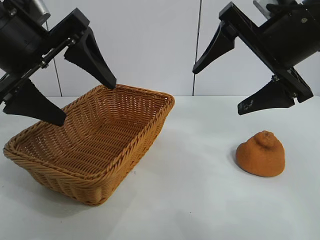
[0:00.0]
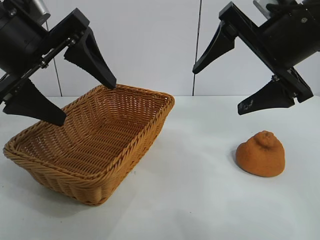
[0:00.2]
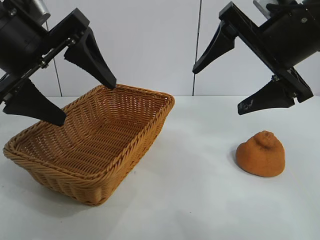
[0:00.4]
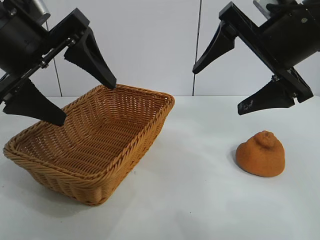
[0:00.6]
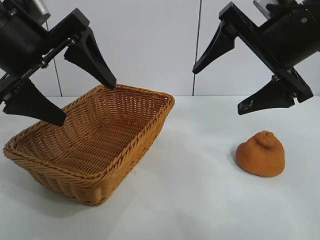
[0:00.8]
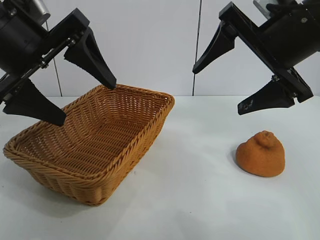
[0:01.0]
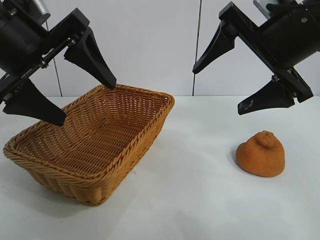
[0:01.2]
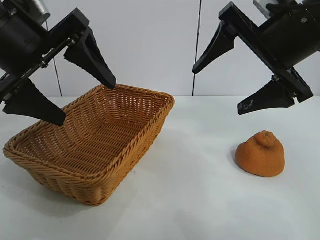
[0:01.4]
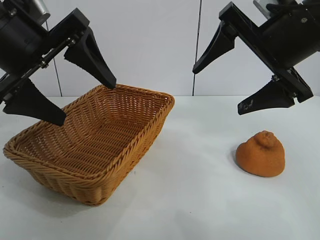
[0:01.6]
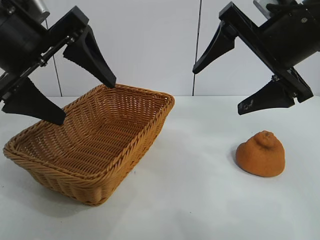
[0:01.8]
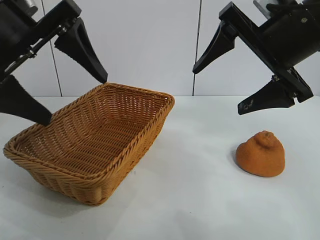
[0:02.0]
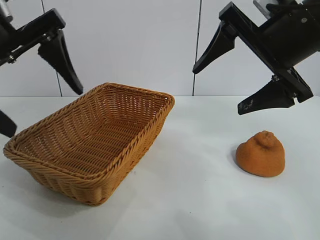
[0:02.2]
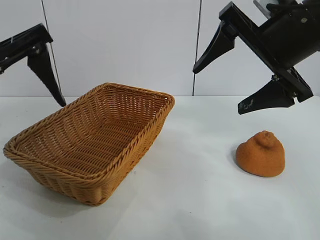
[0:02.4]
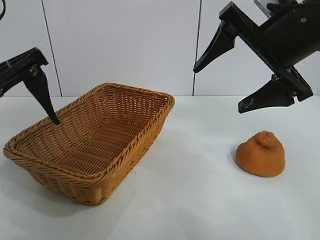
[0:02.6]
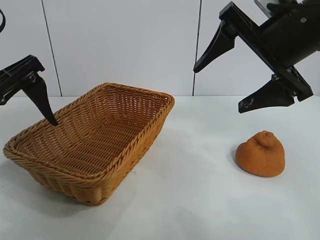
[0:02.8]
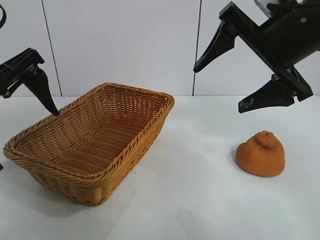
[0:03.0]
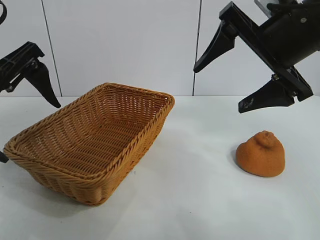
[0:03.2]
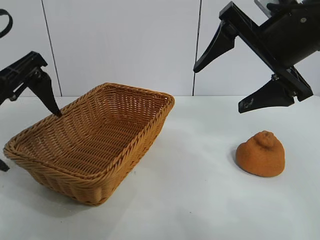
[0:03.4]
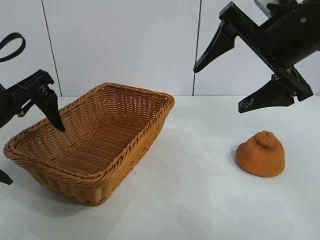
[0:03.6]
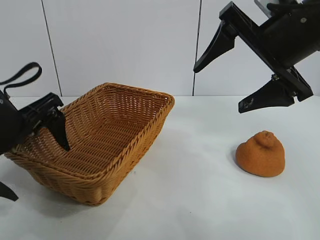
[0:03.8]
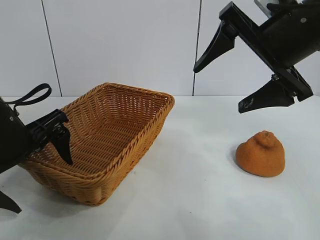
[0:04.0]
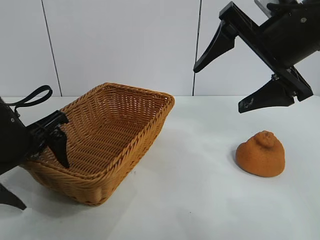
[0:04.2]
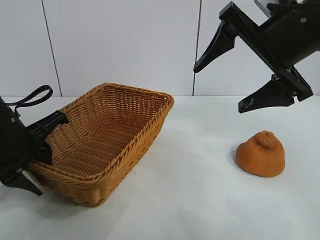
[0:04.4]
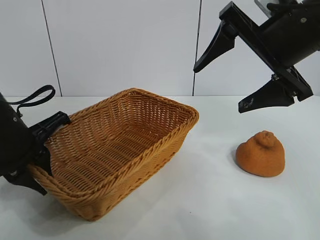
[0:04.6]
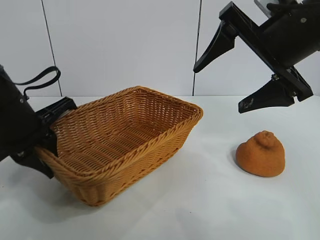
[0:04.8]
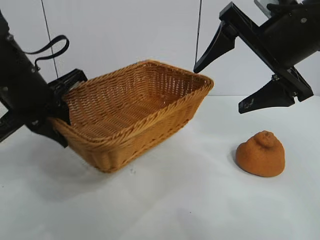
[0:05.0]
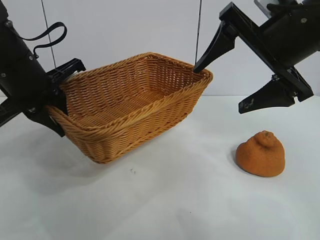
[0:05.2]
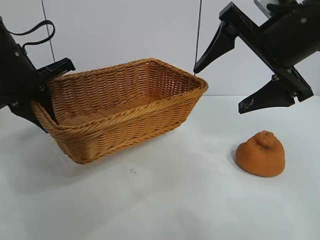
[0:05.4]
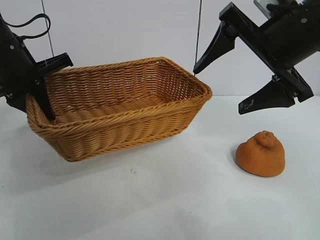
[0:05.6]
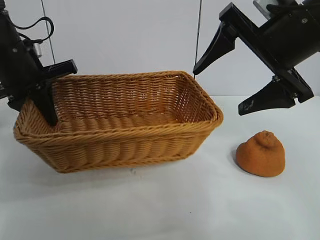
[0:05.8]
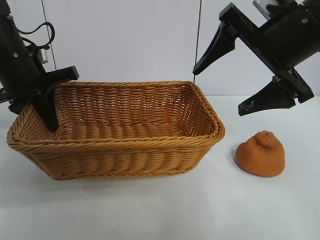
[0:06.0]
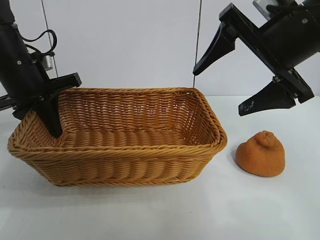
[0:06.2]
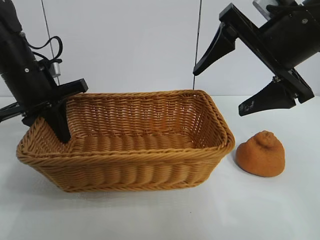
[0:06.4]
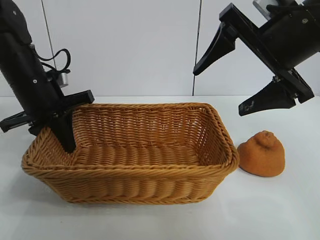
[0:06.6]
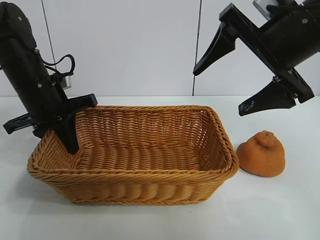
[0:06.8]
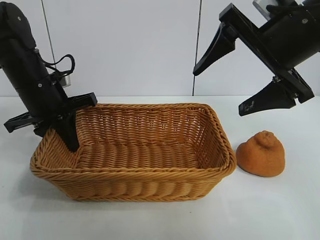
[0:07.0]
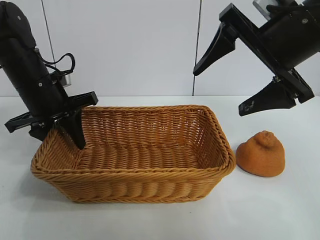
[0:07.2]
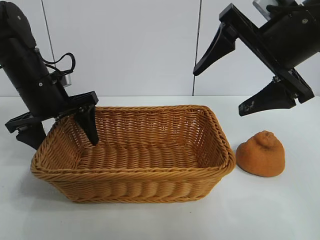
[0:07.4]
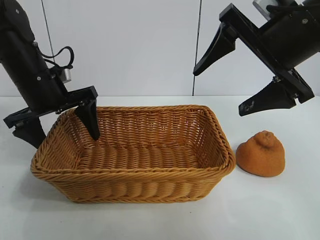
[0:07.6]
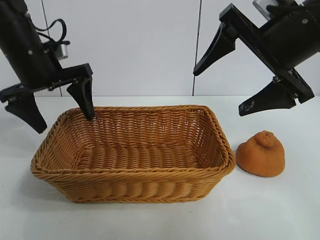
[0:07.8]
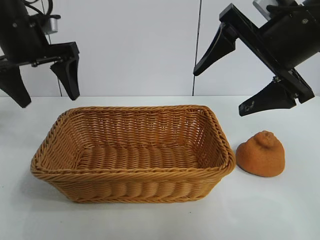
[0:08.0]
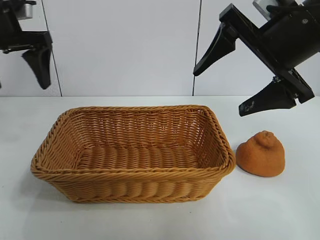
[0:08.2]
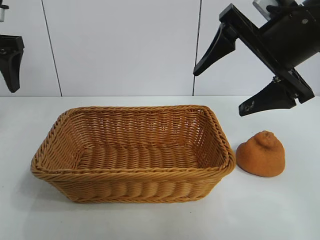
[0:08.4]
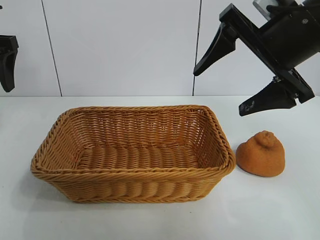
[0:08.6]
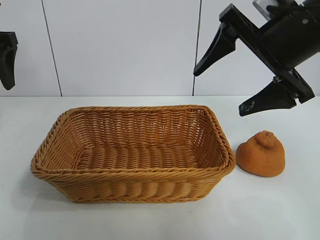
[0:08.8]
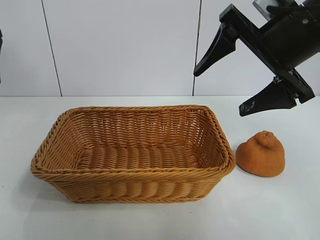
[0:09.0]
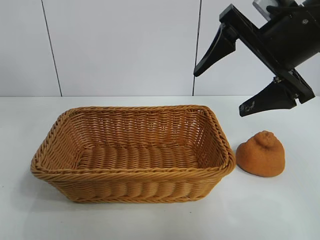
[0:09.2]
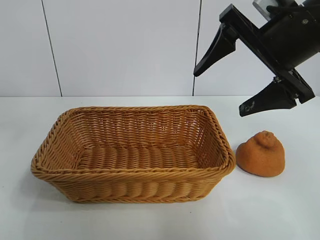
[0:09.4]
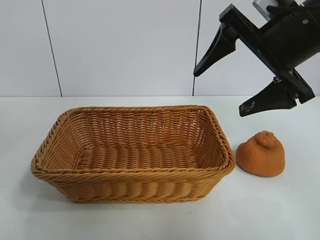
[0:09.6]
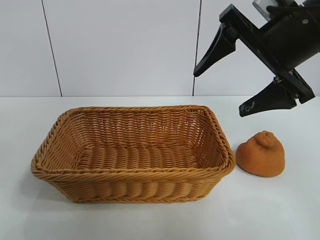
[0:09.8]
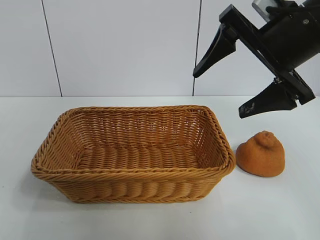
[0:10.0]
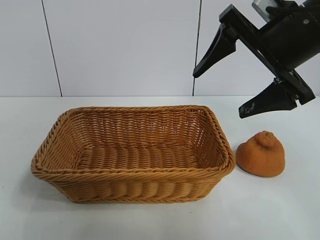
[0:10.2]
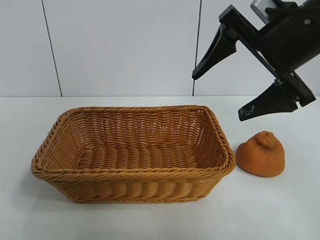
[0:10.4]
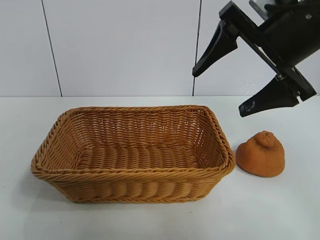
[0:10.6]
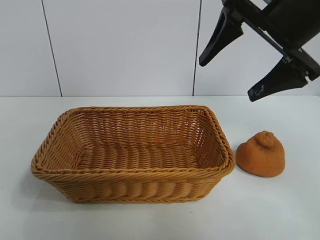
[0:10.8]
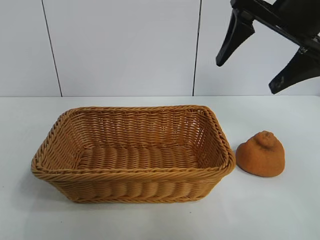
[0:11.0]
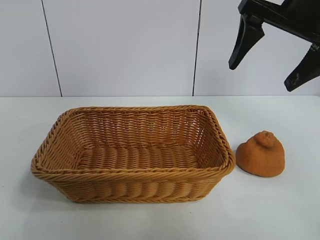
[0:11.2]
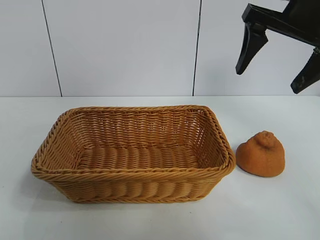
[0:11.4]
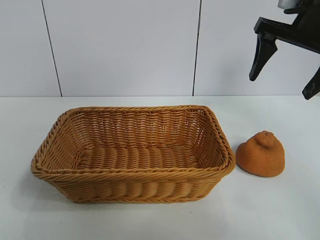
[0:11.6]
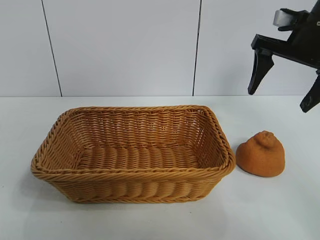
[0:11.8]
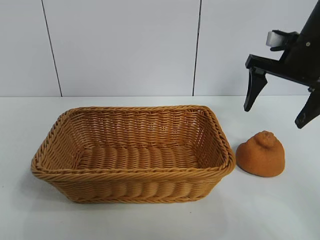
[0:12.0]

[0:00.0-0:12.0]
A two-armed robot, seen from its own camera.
Task of the whole recording: pick up the orange and put it into the basket.
Step, 0:01.8 to 0:04.4: Grasp the basket with left gripper.
Step, 0:04.6 to 0:07.4: Place the basket in the center of view with left gripper.

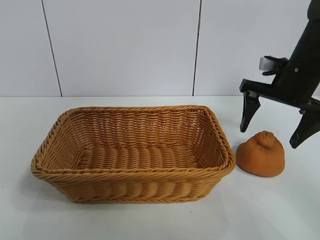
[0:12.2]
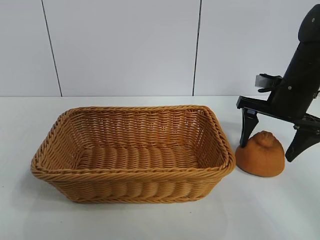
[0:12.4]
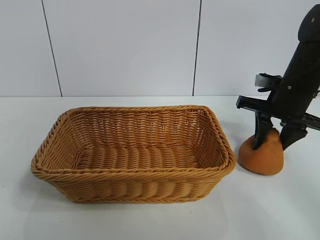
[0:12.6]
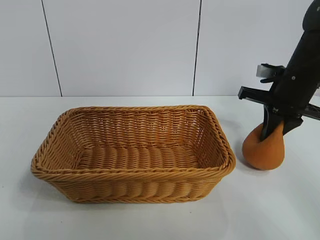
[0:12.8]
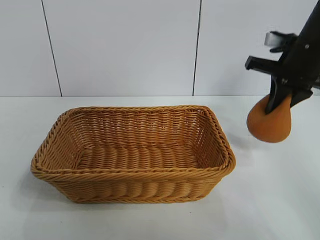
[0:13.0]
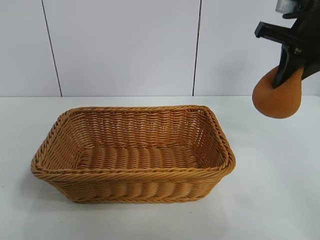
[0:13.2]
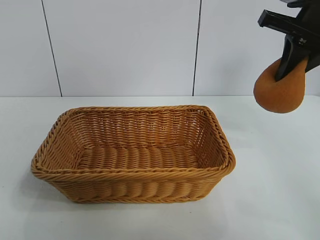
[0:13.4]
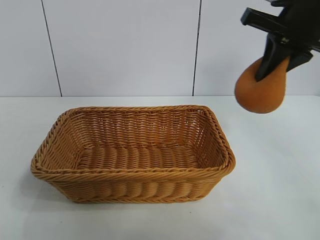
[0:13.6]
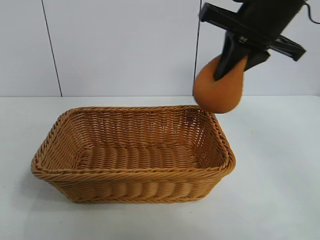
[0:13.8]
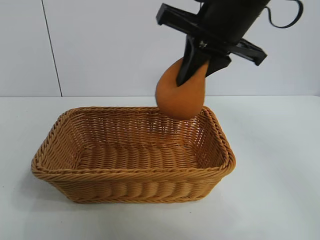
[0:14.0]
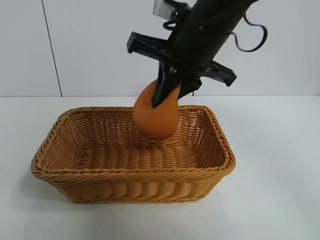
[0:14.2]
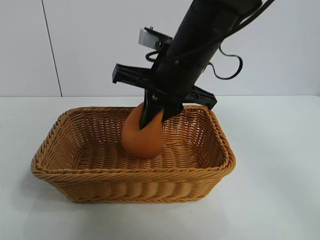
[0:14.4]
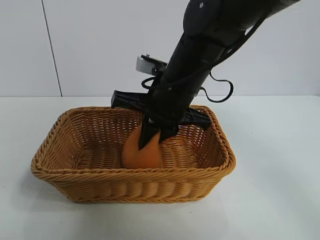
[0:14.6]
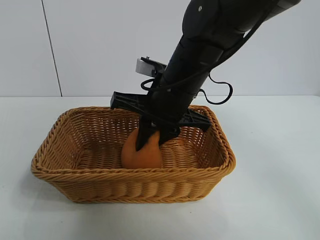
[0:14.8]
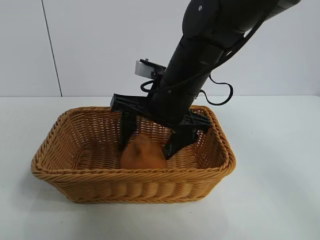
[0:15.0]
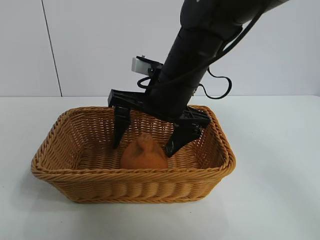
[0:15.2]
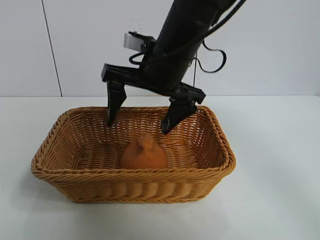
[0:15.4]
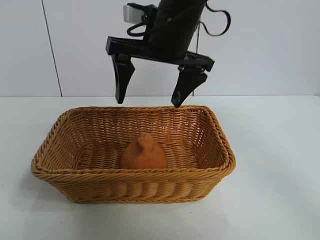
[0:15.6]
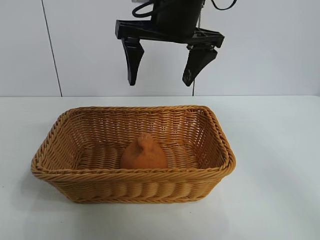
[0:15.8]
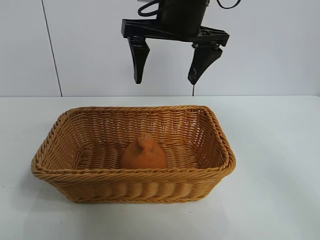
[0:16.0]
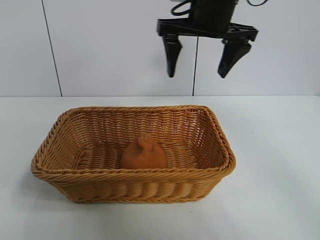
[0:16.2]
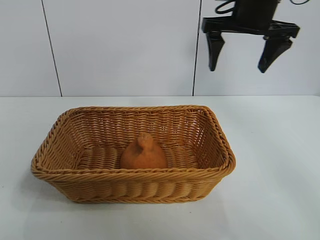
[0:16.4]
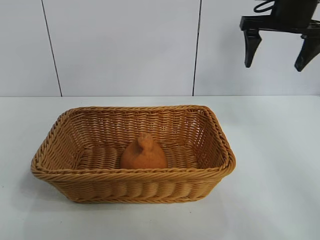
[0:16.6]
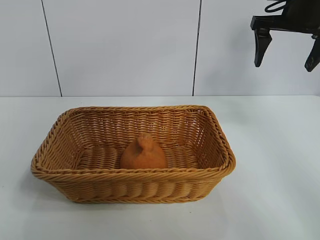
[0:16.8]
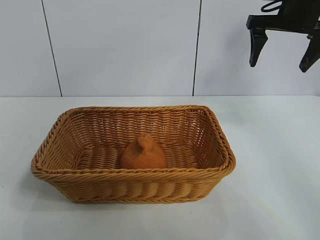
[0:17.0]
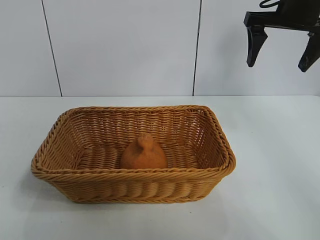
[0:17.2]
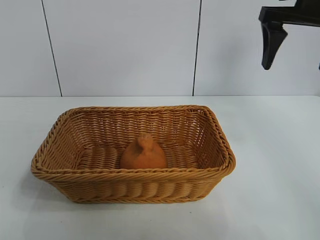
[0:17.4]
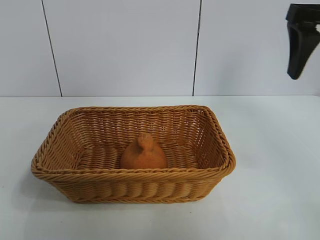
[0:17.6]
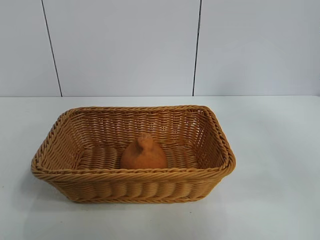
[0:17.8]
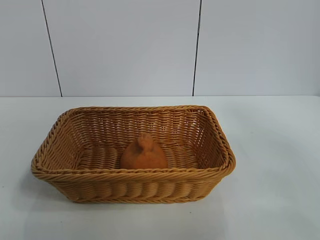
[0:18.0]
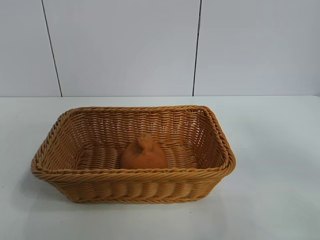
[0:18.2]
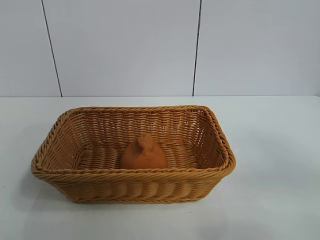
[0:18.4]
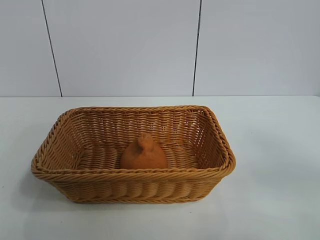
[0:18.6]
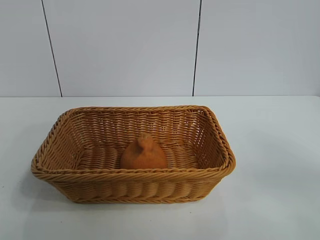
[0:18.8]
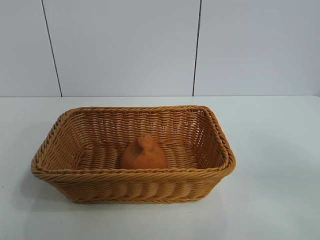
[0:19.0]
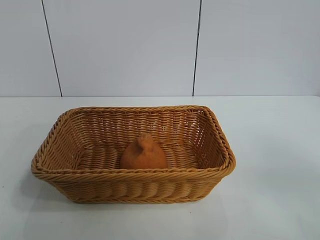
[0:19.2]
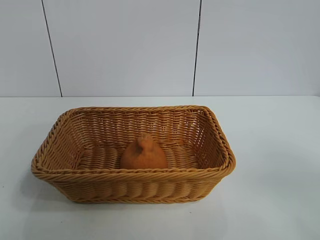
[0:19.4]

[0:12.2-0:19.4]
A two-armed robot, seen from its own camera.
Task of the whole recording: pick up the orange and put it into the basket.
Step, 0:13.0 to 0:15.2: Place the orange in the basket with right gripper.
